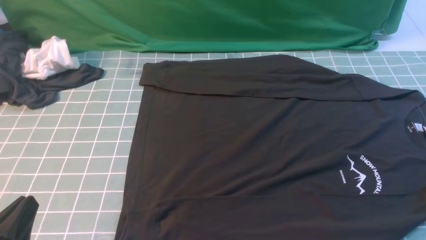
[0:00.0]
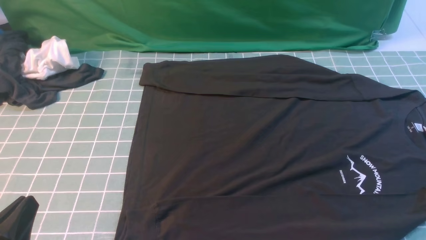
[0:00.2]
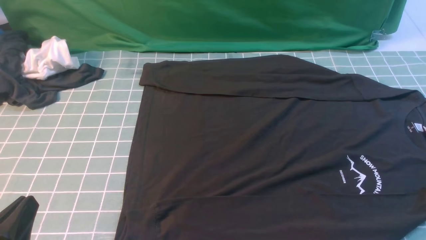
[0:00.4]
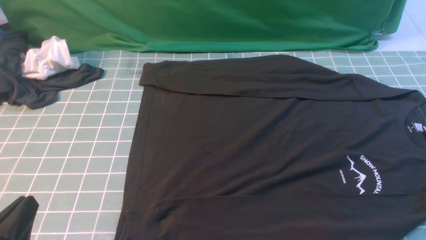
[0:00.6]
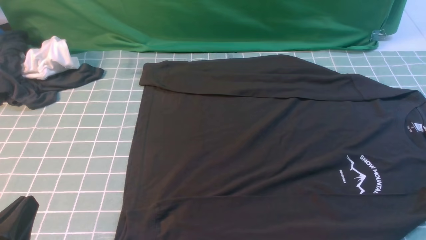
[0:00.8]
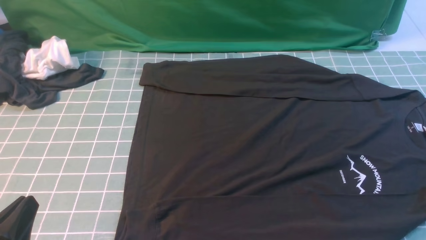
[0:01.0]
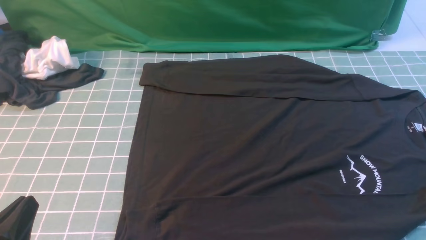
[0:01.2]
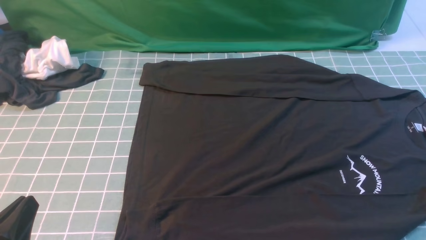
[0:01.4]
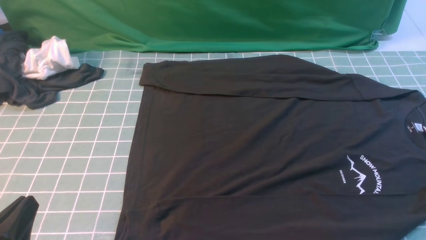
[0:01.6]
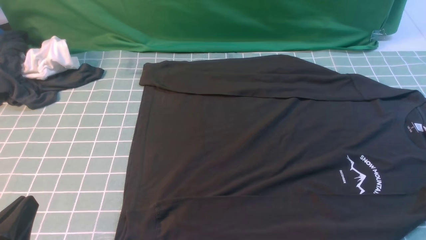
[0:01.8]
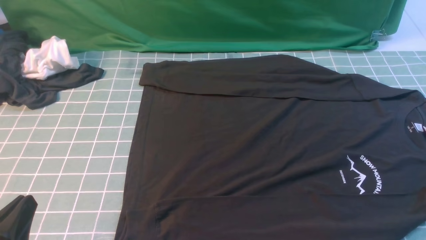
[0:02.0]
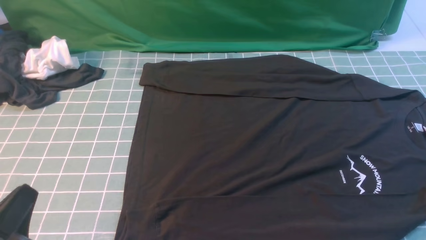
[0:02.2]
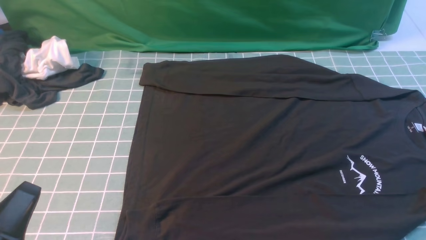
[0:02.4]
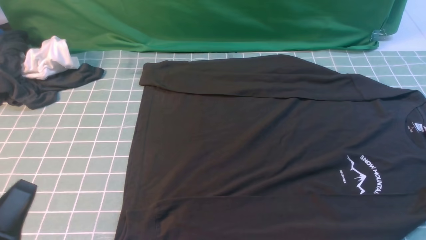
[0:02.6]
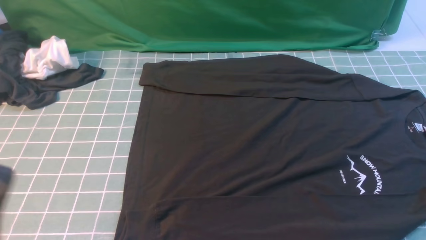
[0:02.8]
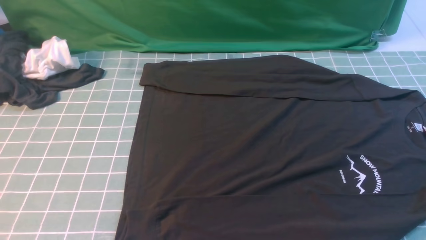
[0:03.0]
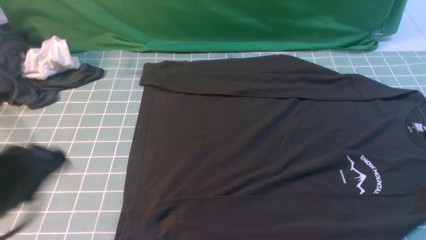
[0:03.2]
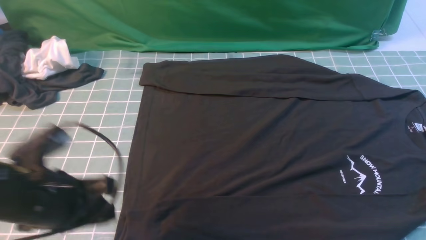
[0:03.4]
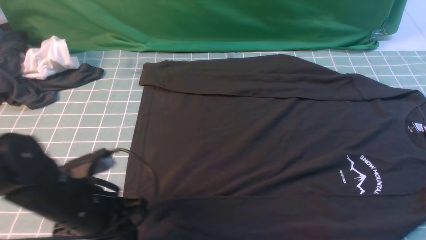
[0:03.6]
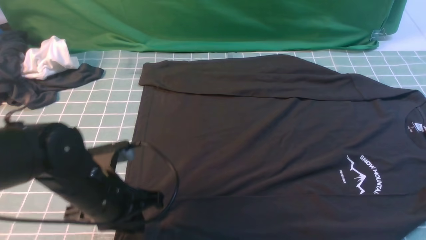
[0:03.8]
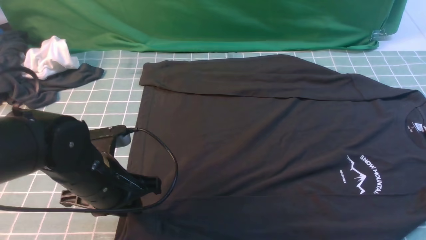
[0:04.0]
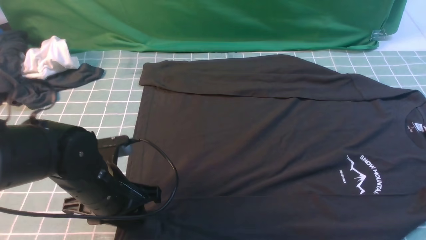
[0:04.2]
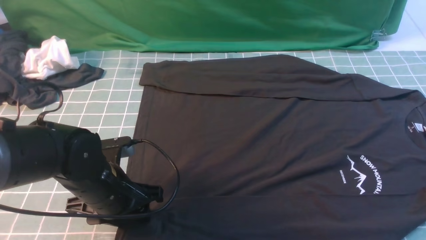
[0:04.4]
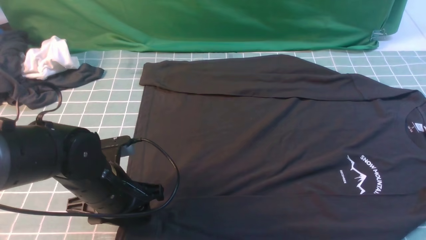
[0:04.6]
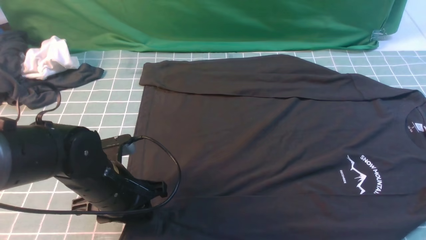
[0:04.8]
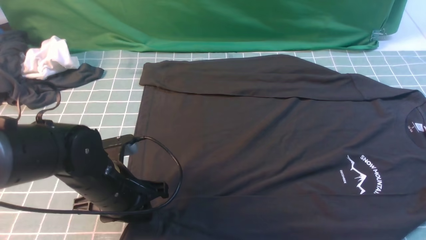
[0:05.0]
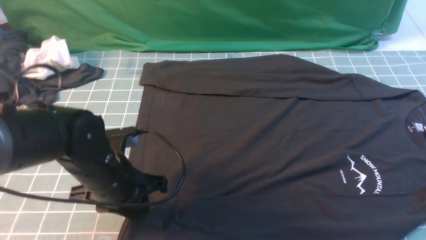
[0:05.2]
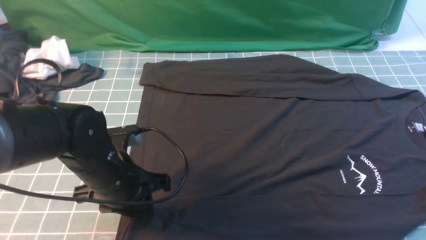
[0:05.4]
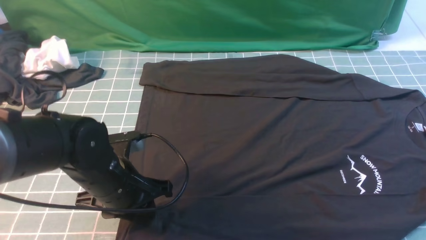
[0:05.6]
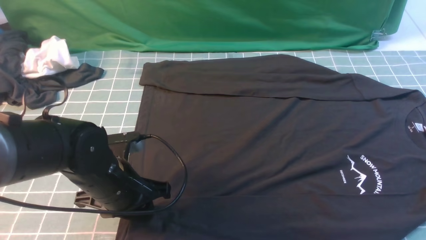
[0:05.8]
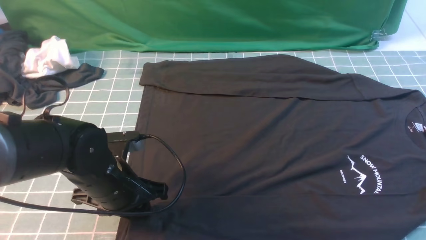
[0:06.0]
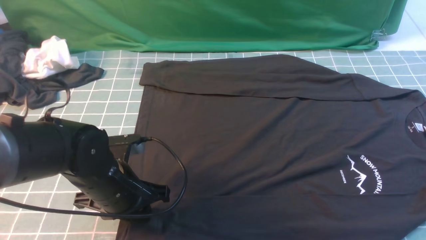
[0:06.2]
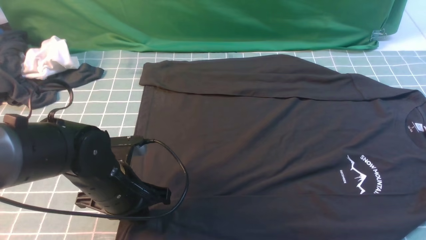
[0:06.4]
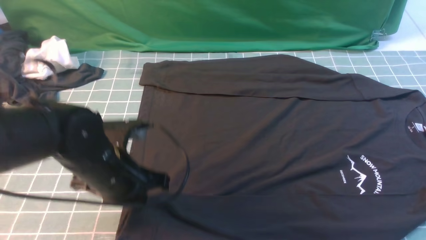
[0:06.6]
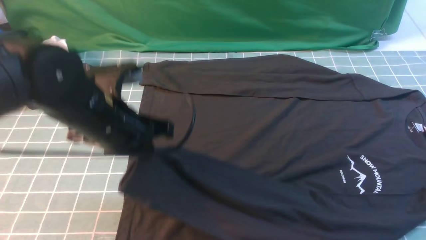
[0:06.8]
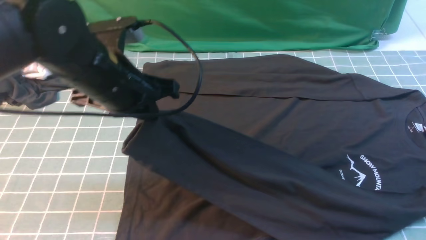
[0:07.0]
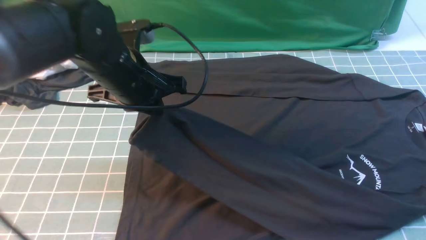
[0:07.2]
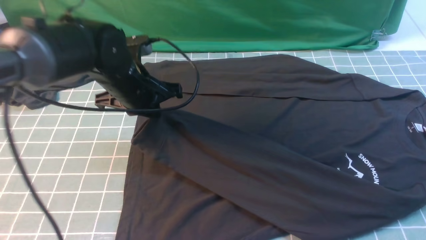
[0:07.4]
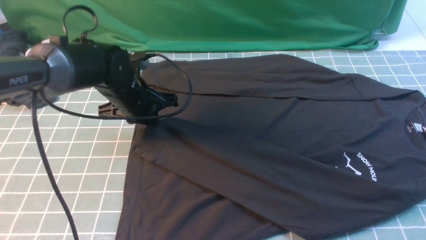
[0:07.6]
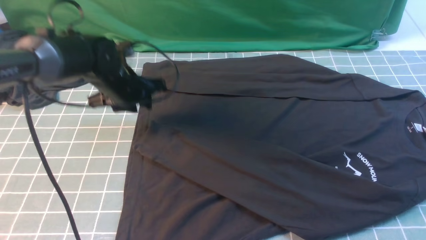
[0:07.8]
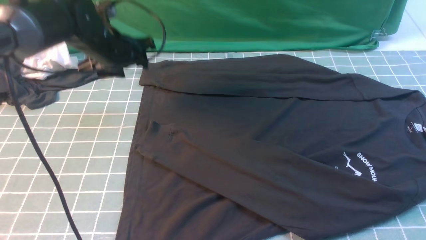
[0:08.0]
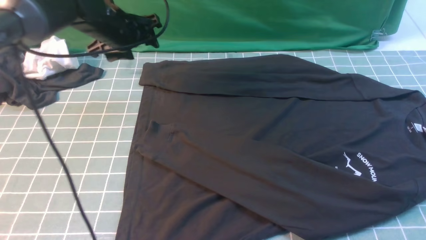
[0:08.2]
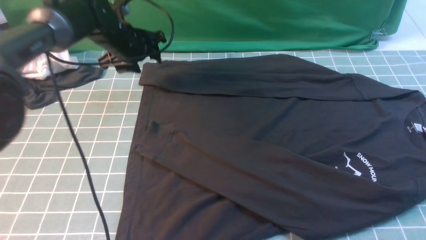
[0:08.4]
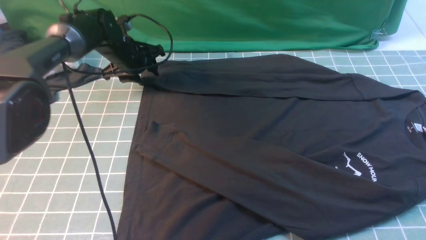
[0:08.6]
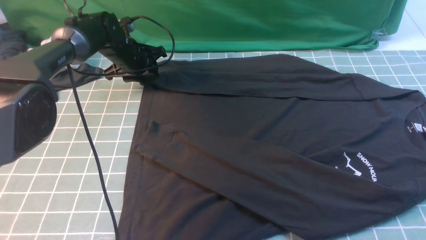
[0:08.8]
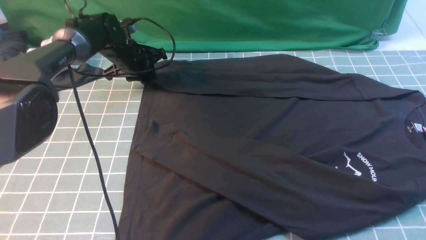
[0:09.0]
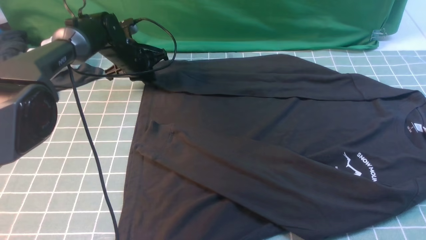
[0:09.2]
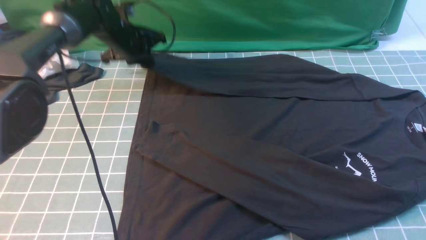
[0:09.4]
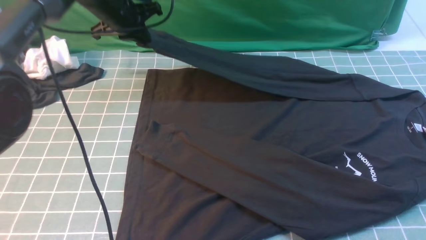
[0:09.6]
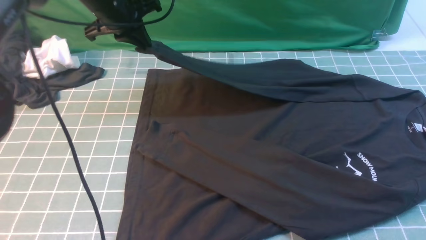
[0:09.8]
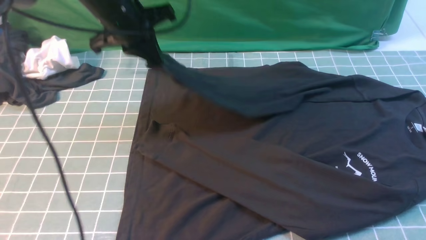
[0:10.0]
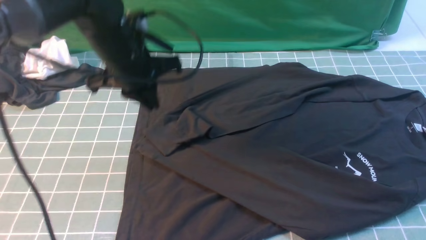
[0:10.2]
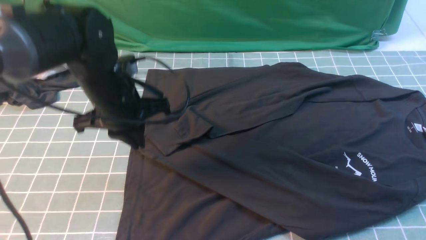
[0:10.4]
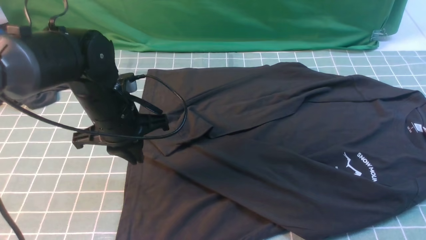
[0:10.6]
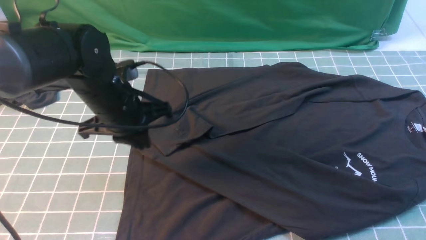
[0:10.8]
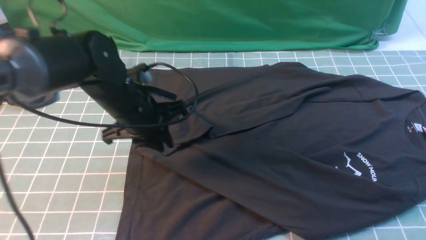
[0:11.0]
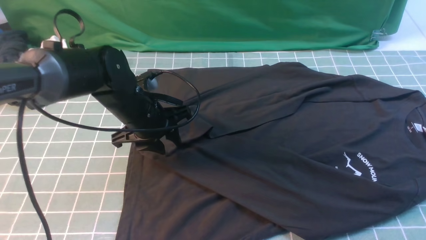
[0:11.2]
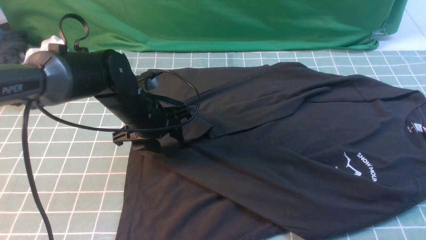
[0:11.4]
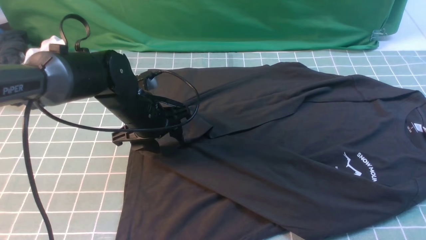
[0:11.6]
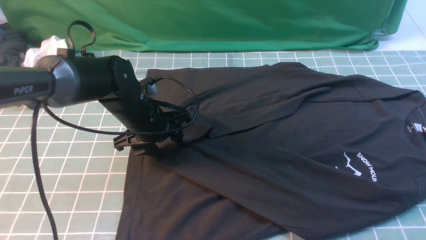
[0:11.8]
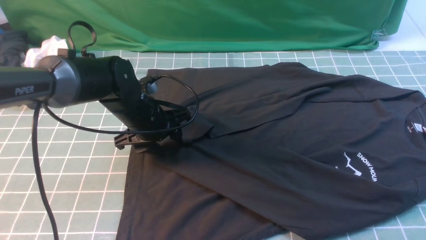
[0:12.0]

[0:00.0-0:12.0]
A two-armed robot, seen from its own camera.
Step, 0:00.0 to 0:06.2: use the left arm to clamp the cuff closest to it.
Step, 0:06.4 to 0:07.6: use the left arm to drag and place the cuff at the centered position on the left edge of the fabric.
Step, 0:08.0 to 0:09.2: use the left arm to clamp the cuff farthest from it.
0:00.0 to 0:01.6: Neither gripper changes place.
0:01.6 to 0:03.0: The left gripper is displaced upward by about 10 cm.
0:03.0 to 0:04.4: The right gripper goes roughly 10 cm forward. Meanwhile the left gripper is displaced forward, downward and to the right by about 20 cm, and opens up.
0:04.4 to 0:06.0: The grippers move only a little.
0:06.0 to 0:07.6: The left gripper goes some 15 cm forward.
0:07.6 to 0:09.0: The left gripper moves forward, approximately 15 cm, and opens, then closes again.
0:09.0 to 0:10.4: The left gripper travels backward and upward by approximately 20 cm.
0:10.4 to 0:12.0: The left gripper is displaced downward by about 10 cm, and opens its fingers.

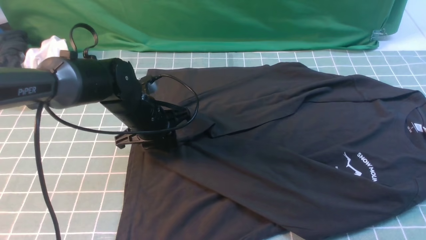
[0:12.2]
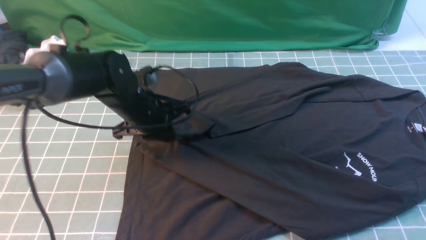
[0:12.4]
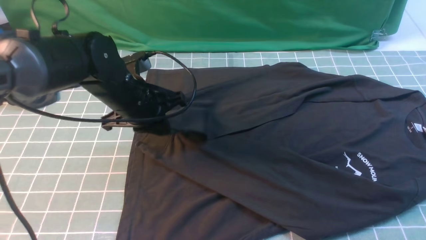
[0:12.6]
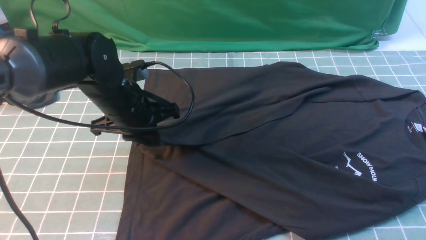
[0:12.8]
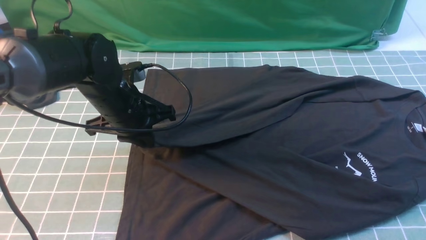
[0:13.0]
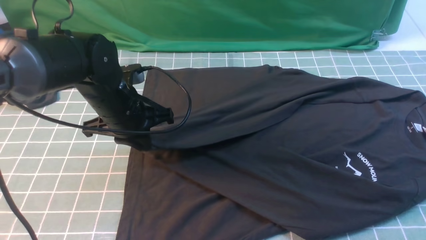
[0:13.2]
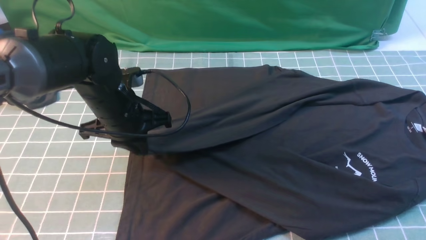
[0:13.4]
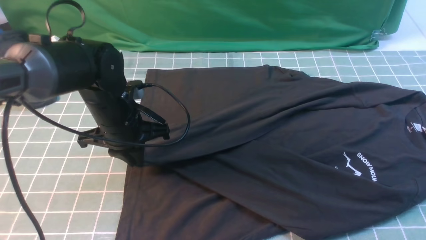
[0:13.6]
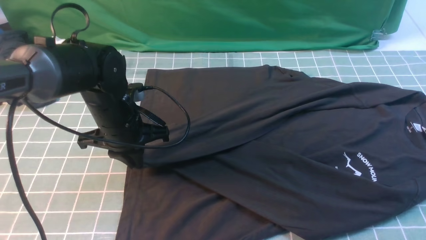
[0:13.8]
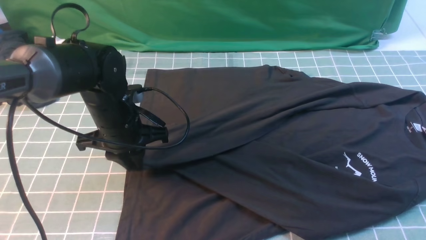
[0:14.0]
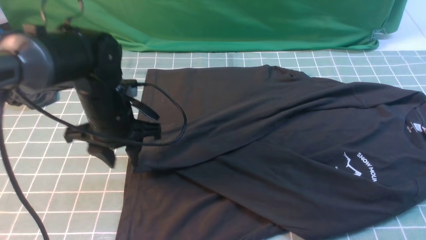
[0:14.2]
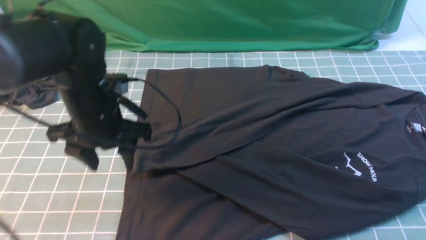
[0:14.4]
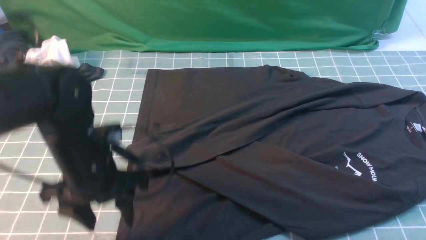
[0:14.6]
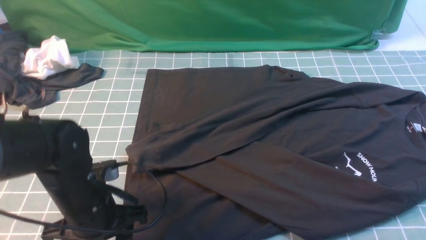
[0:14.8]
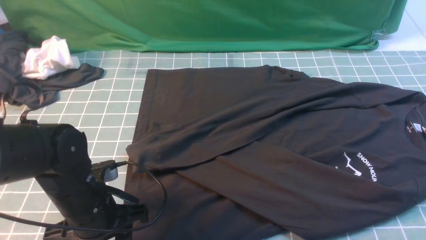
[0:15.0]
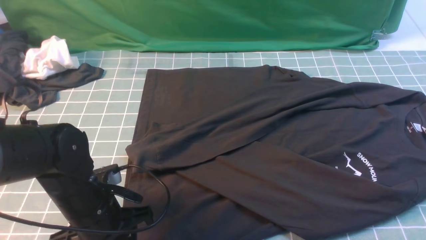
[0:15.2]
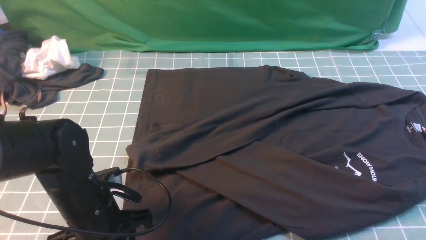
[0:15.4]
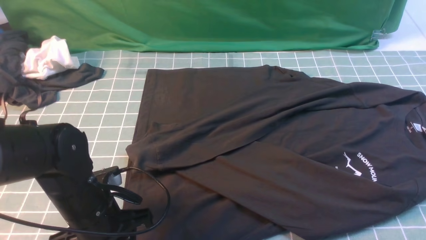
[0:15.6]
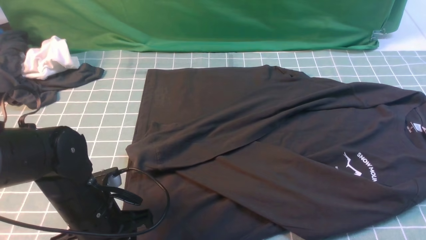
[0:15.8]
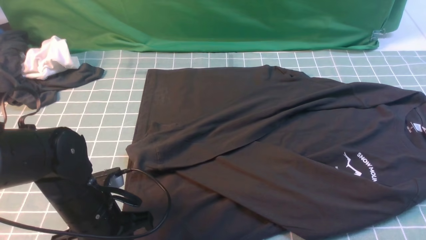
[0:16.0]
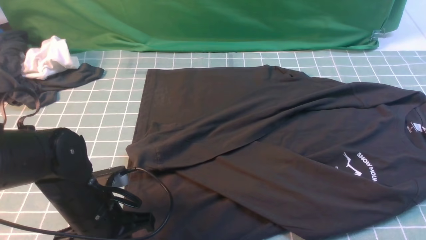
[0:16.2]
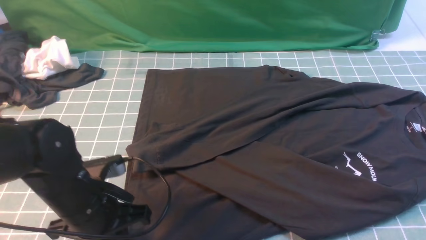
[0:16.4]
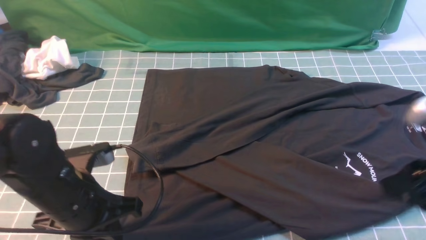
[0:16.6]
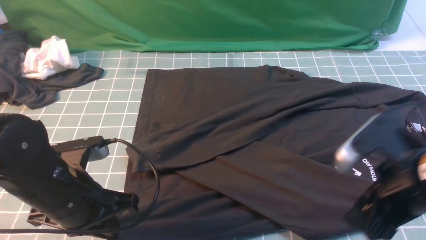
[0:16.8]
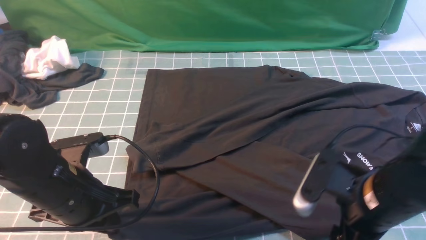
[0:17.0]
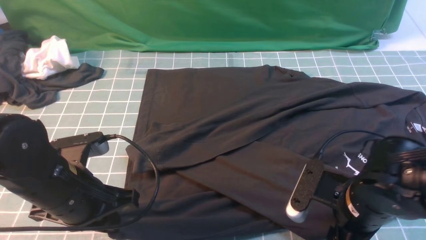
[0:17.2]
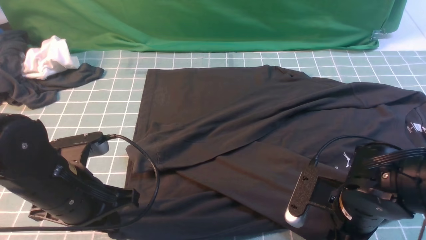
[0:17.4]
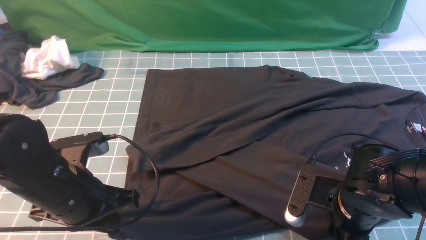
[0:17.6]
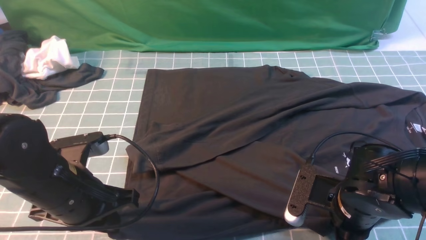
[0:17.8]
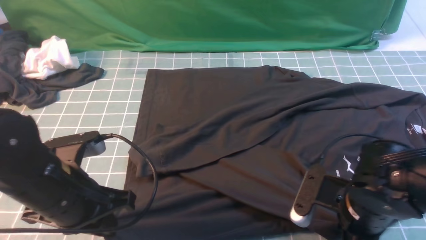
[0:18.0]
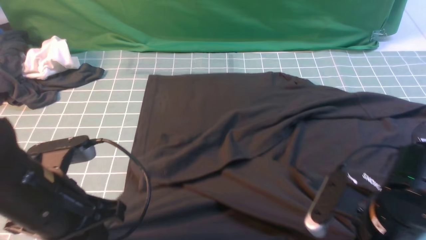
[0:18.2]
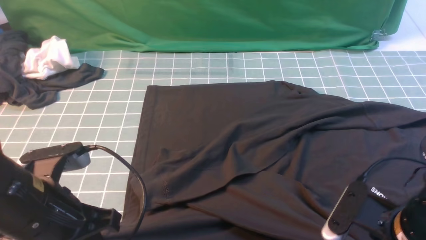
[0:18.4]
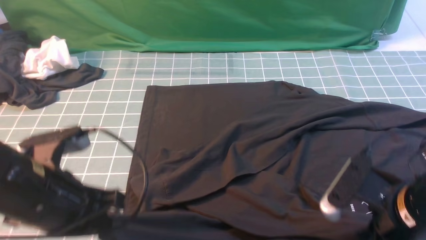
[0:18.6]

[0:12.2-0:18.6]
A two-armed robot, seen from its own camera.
Step, 0:12.2 to 0:14.2: use the left arm to drag and drop the cuff onto the cuff closest to the left arm.
Step, 0:14.4 to 0:18.0: use both arms simultaneously to clamp the lower edge of the clothing fabric.
0:13.8 to 0:15.4: The left gripper travels backward by about 15 cm, and opens its fingers.
0:15.4 to 0:17.0: The right gripper moves to the left and downward, some 15 cm, and opens its fingers. The left gripper heads upward, covering some 5 cm, and closes its fingers.
0:17.0 to 0:18.6: The right gripper closes up. The left gripper moves approximately 5 cm.
